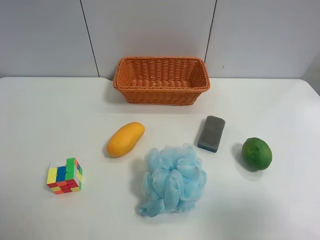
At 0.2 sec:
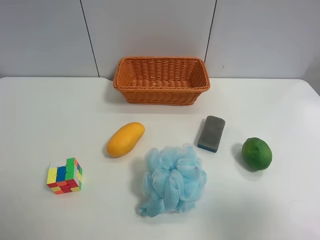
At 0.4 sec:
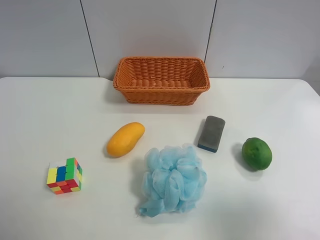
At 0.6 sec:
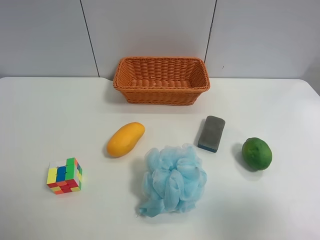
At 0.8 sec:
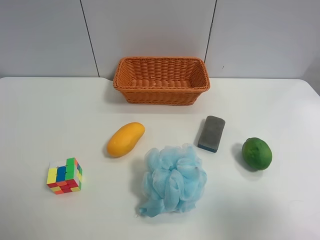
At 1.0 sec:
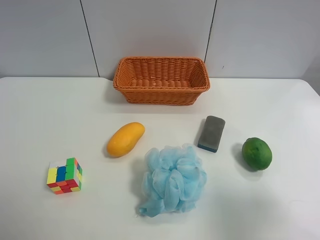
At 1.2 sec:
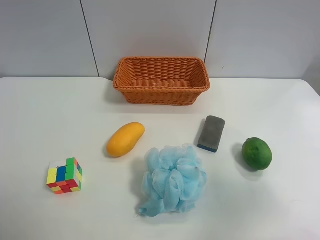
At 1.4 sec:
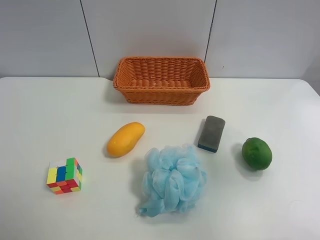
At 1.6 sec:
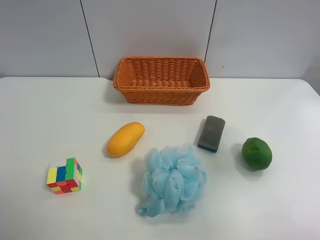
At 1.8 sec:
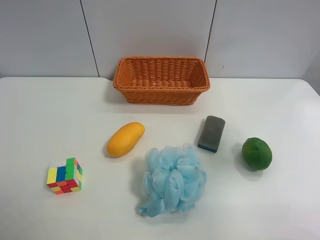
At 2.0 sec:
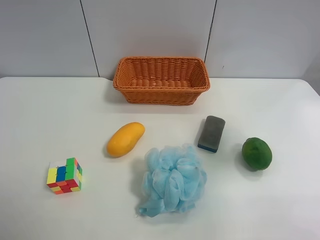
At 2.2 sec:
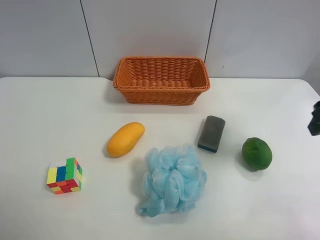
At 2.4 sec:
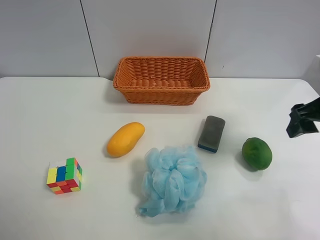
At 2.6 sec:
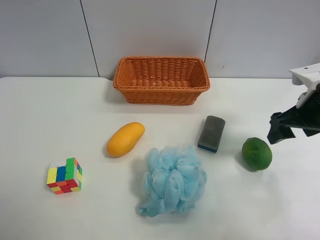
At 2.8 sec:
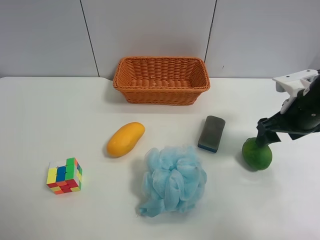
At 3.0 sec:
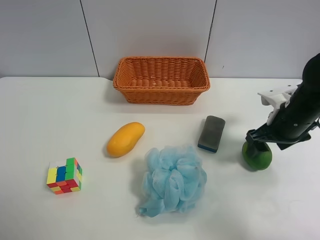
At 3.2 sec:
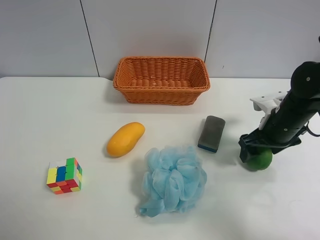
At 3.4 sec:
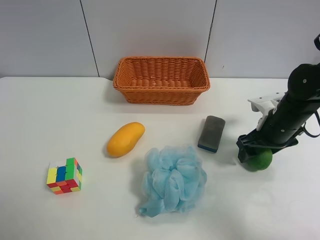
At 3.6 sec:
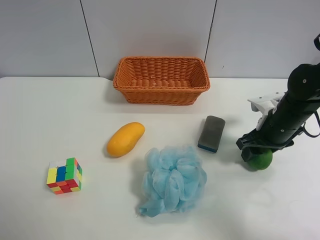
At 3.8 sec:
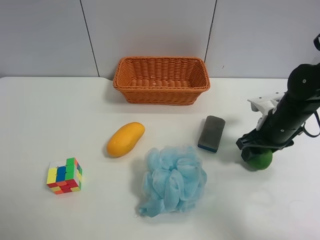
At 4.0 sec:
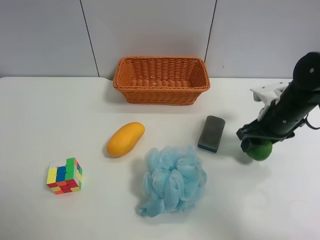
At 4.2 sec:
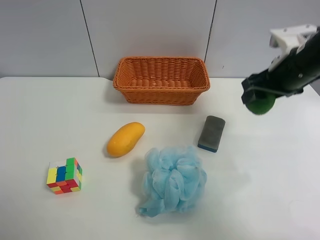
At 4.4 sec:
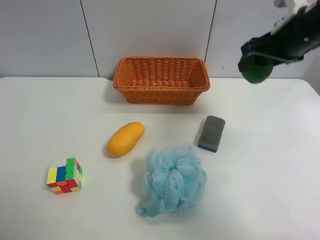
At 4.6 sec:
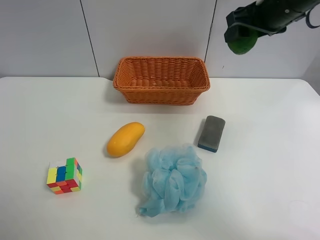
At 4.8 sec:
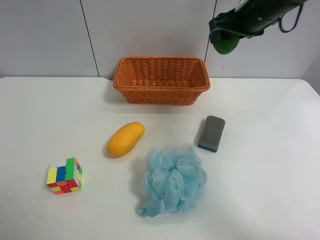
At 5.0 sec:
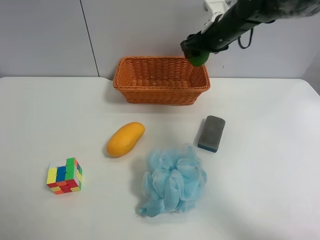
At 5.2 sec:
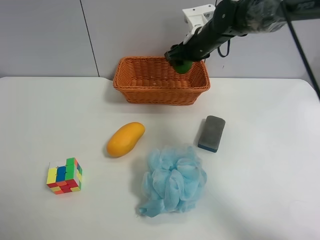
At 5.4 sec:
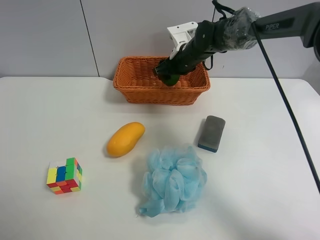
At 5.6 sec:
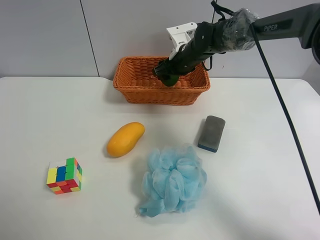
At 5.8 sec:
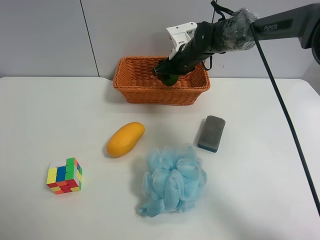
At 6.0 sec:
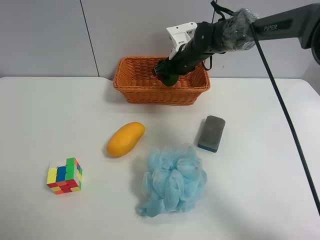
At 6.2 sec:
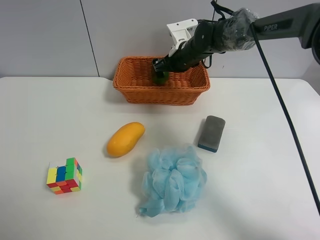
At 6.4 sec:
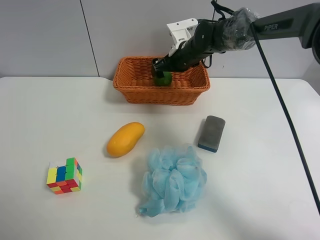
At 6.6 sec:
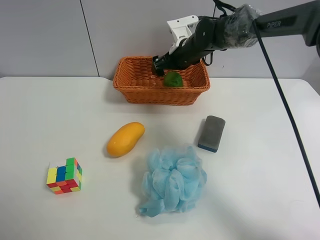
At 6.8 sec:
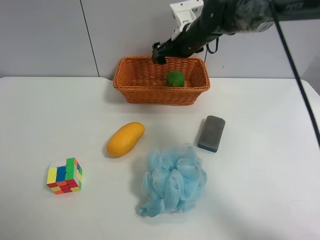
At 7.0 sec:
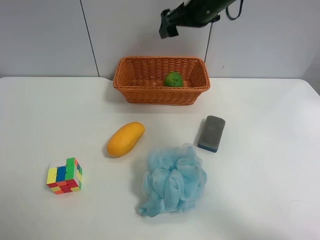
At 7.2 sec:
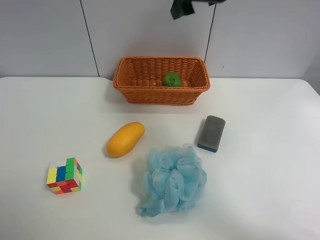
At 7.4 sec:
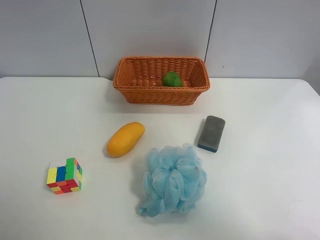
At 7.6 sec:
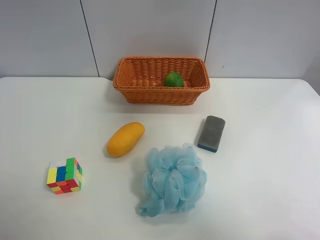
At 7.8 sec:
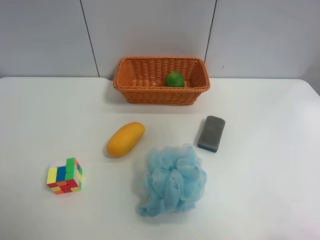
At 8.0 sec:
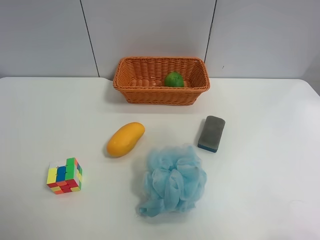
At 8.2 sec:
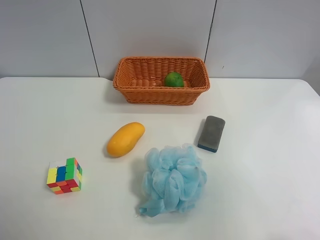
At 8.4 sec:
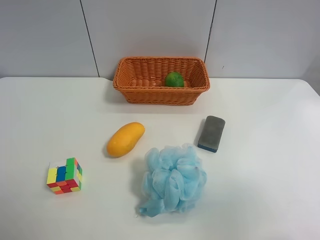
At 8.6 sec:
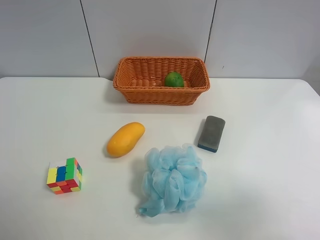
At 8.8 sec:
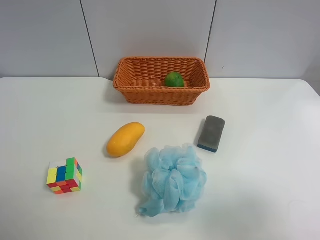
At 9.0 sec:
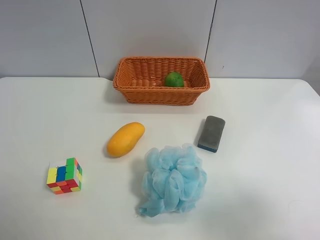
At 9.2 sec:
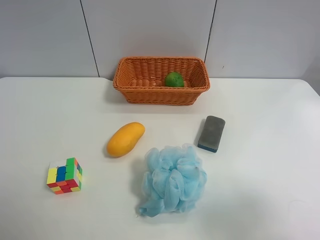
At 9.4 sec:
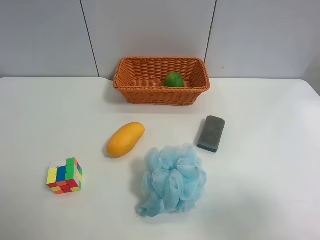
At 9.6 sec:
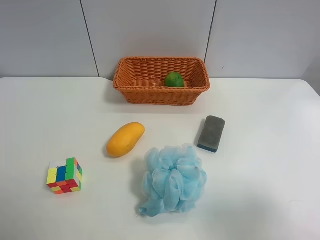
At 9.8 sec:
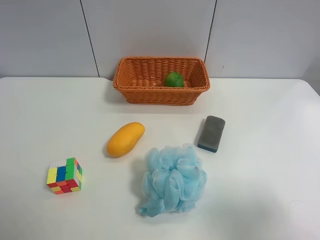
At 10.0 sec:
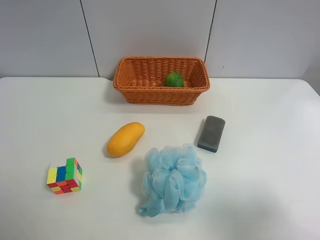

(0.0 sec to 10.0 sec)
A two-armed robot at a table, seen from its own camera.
Task of the whole recording: Randomly grab green lemon or mangoes from the table and put them in a basket.
Step, 0.0 sec - 3.8 sec: Grasp the Lemon with the right gripper.
Step, 4.0 sec - 6.8 sec: Place the Lemon into the basket with the right gripper.
0.0 sec - 1.4 sec: The right gripper heads forward and upward, covering approximately 10 cm.
1.4 sec - 2.8 sec: The right gripper heads forward and downward, covering roughly 25 cm.
2.8 sec - 4.2 sec: The right gripper travels upward by about 10 cm, and closes.
4.2 sec - 5.8 sec: The right gripper moves forward, to the left and downward, some 25 cm.
5.8 sec - 7.2 sec: The right gripper goes about 25 cm upward and backward, and opens its fingers.
7.2 sec - 8.6 sec: The right gripper is displaced backward and to the right by about 40 cm.

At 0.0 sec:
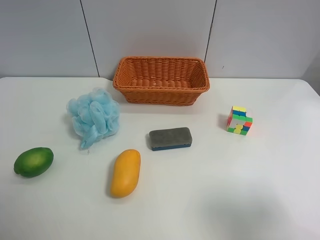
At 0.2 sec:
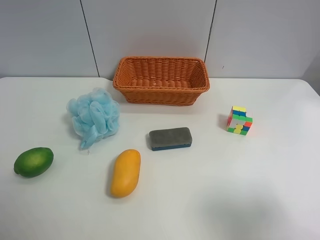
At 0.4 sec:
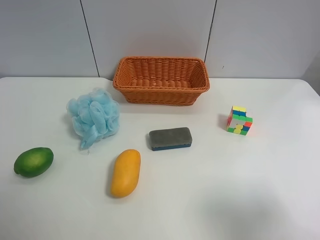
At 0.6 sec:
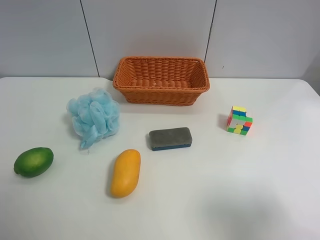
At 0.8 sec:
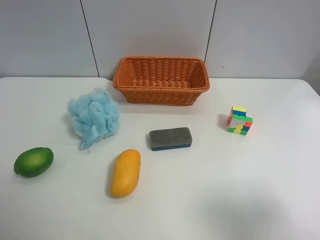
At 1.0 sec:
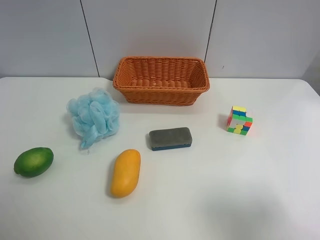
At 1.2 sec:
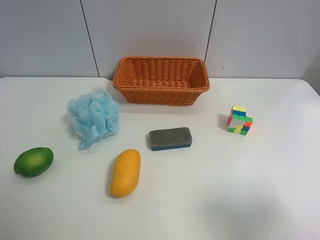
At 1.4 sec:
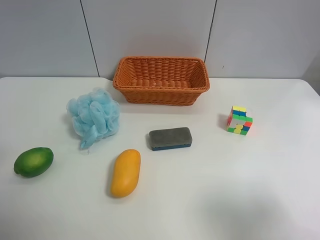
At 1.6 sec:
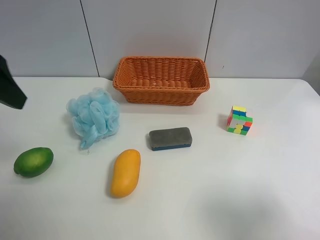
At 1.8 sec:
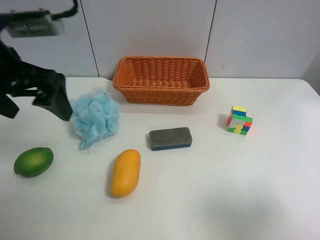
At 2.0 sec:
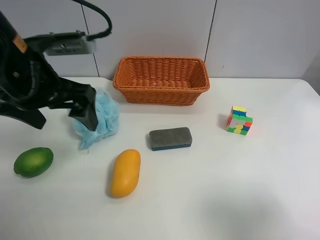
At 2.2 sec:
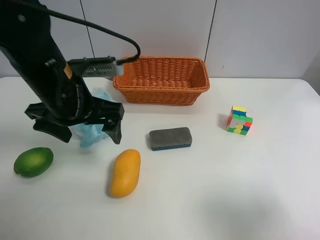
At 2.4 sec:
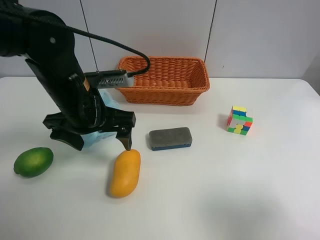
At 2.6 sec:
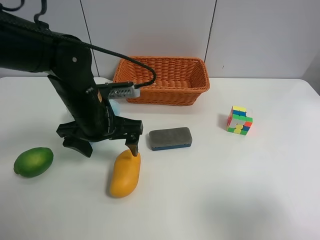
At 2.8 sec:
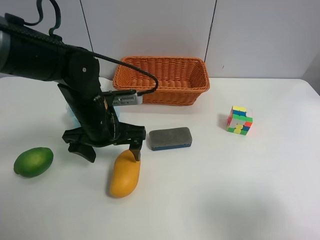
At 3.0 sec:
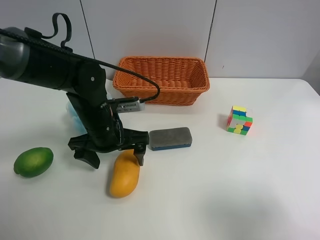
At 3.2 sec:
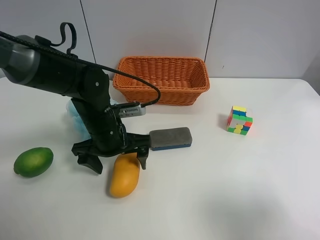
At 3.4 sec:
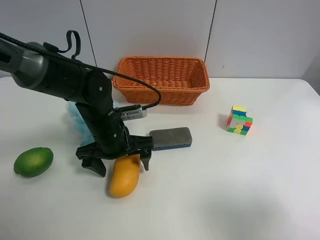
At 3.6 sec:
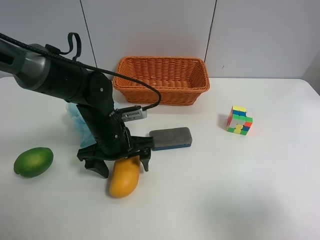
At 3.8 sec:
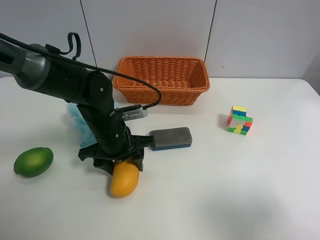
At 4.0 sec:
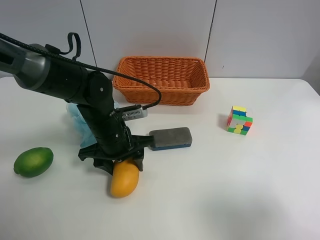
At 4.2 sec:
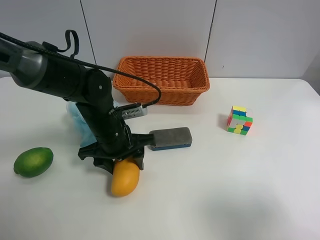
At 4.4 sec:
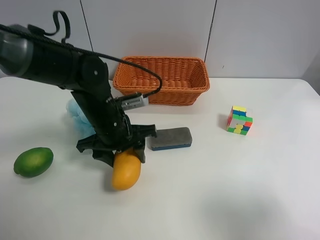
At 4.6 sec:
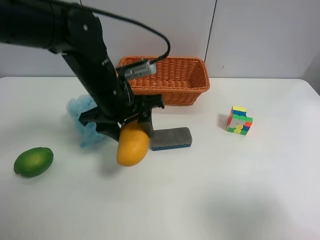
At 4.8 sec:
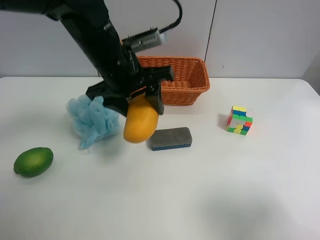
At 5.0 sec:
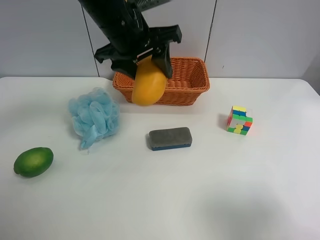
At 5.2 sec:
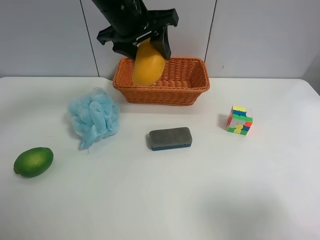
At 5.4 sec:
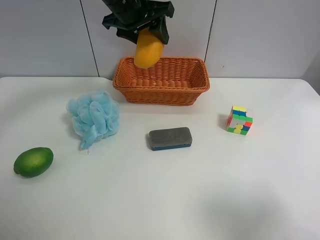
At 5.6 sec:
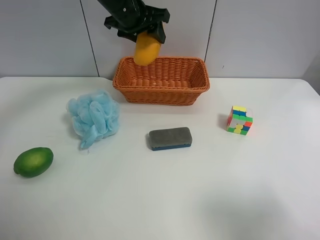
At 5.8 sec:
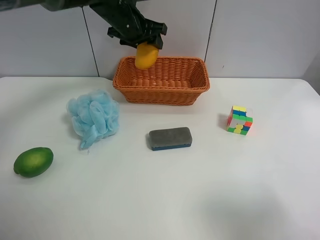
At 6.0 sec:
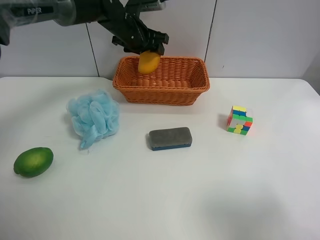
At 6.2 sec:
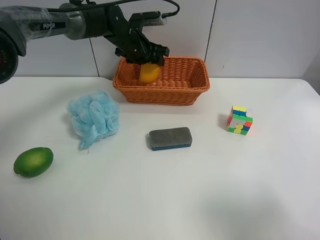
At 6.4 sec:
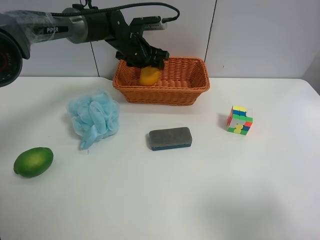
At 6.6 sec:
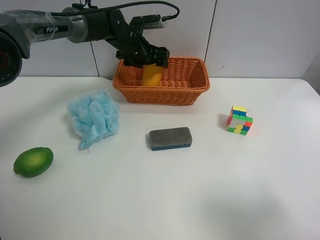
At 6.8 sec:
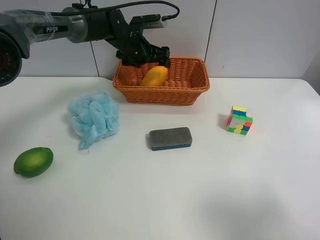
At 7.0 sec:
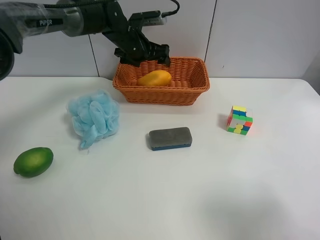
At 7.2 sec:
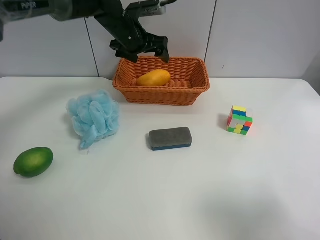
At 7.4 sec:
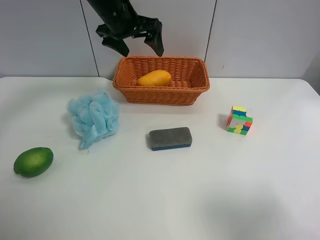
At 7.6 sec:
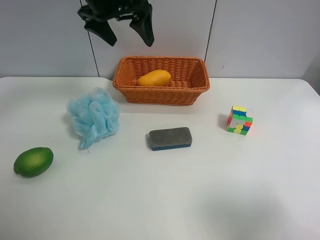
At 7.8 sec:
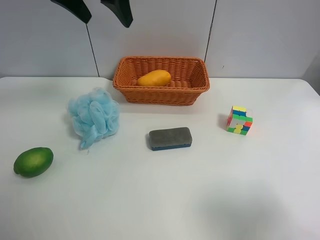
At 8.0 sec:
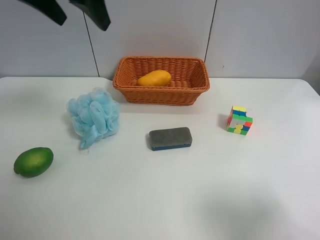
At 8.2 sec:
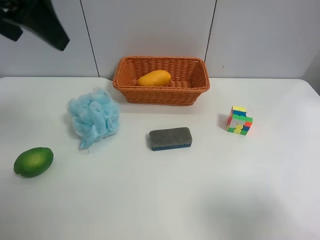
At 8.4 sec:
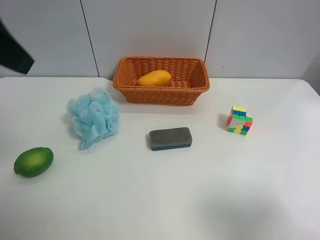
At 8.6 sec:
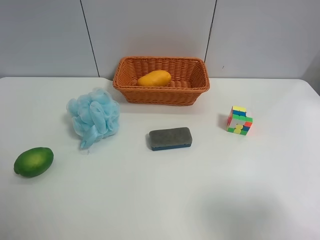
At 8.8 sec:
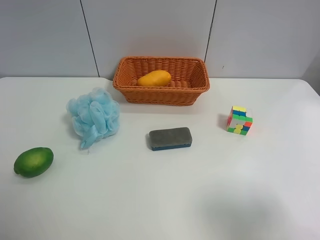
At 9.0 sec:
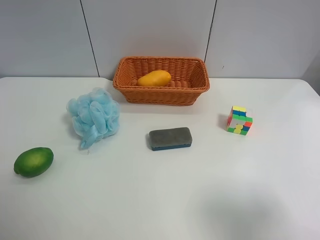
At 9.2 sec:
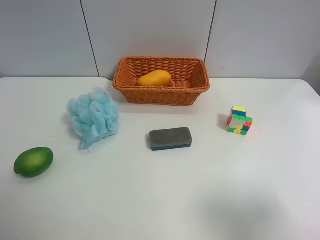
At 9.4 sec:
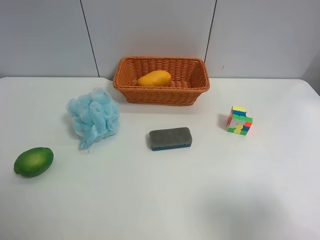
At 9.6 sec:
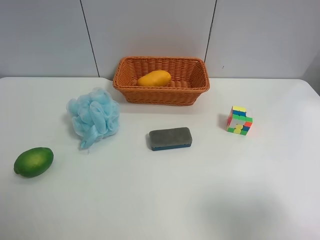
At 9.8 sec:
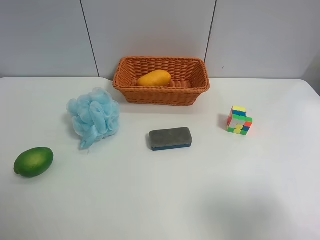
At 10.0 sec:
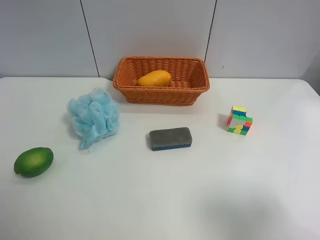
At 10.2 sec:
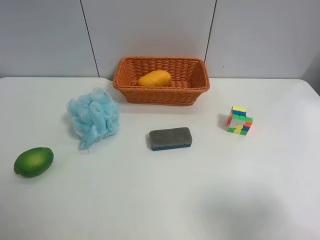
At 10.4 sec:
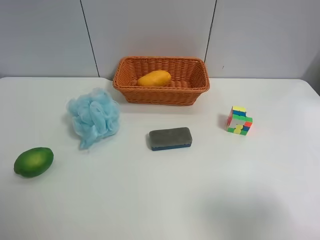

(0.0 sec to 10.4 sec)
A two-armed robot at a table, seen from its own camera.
Task of the whole recording: Randomly grab green lemon or mangoes from the table and put them in a basket.
Step, 0.0 sec - 4.0 sec: Grasp the mango with the left gripper.
Step, 4.2 sec - 7.2 sec: Place the mango into the basket with the left gripper.
1.4 sec - 3.0 sec: The left gripper is displaced downward, to the right and forward by some 30 cm.
3.0 sec - 4.4 sec: The left gripper closes.
4.4 sec - 6.0 sec: The left gripper goes roughly 20 cm forward.
6.0 sec - 7.4 sec: The left gripper shifts approximately 10 cm upward and backward, and opens up.
7.4 sec - 9.0 sec: The left gripper shifts about 40 cm backward and to the left.
